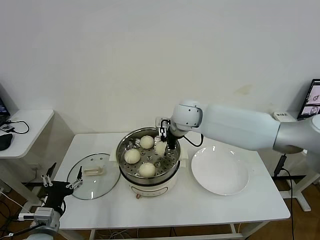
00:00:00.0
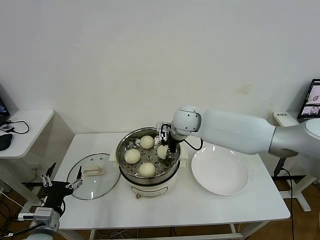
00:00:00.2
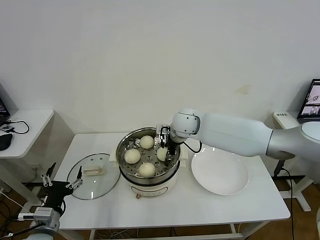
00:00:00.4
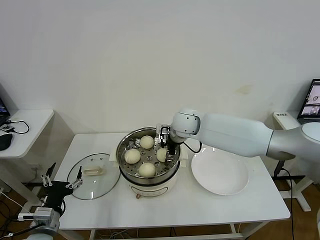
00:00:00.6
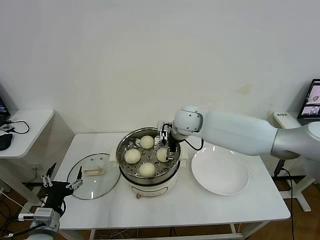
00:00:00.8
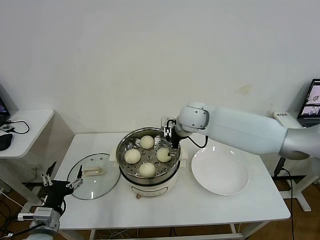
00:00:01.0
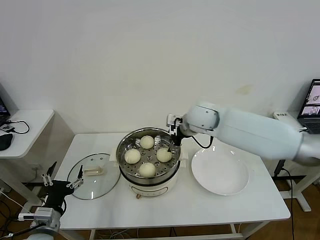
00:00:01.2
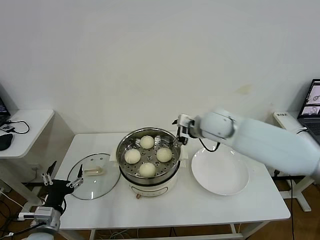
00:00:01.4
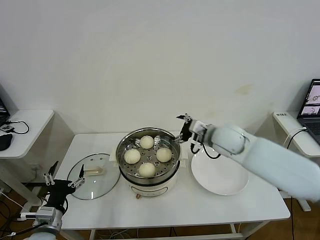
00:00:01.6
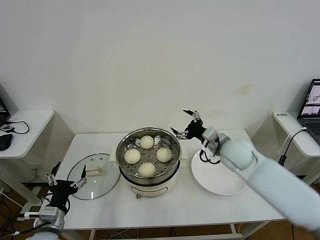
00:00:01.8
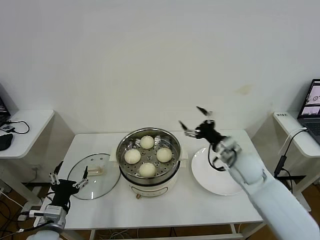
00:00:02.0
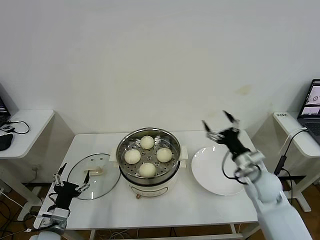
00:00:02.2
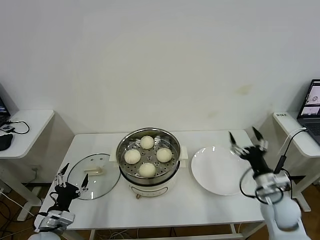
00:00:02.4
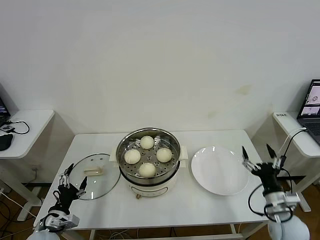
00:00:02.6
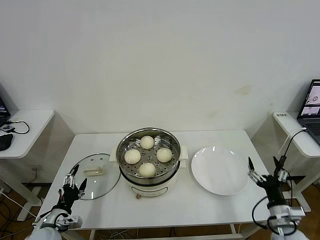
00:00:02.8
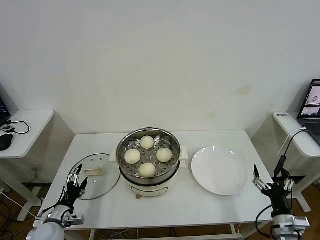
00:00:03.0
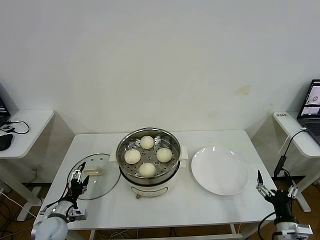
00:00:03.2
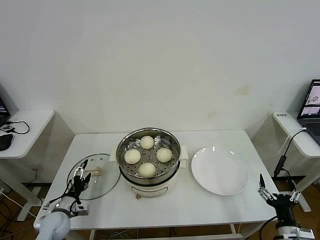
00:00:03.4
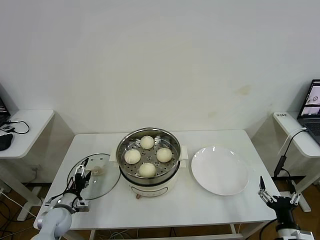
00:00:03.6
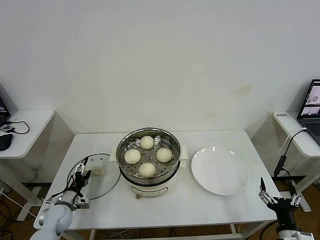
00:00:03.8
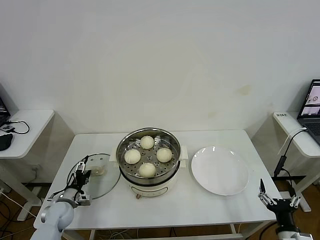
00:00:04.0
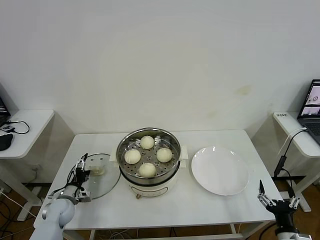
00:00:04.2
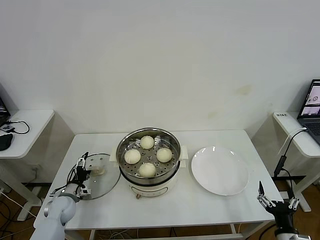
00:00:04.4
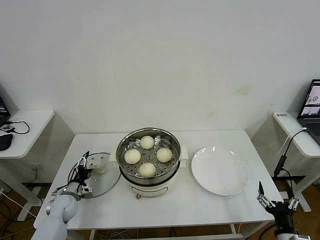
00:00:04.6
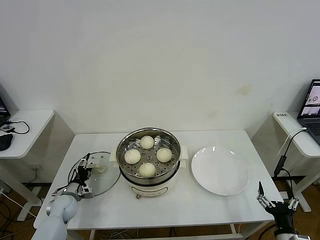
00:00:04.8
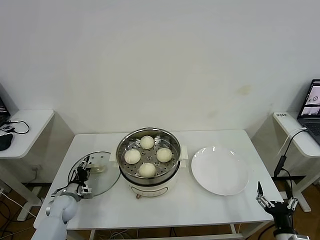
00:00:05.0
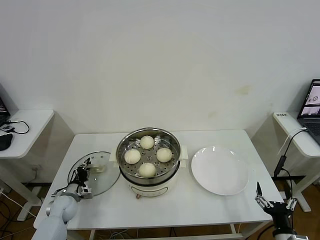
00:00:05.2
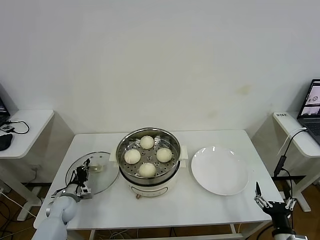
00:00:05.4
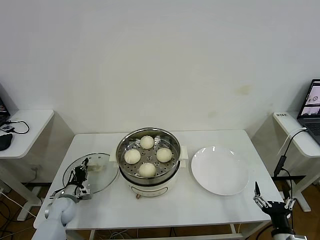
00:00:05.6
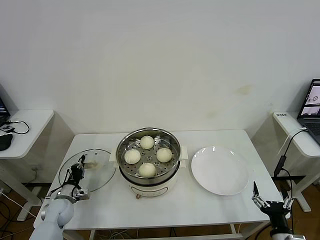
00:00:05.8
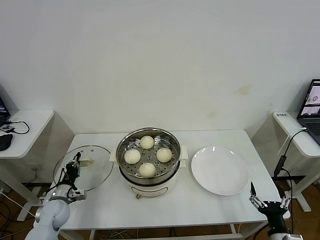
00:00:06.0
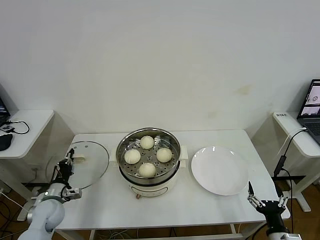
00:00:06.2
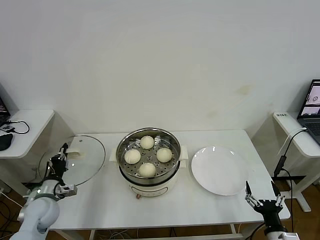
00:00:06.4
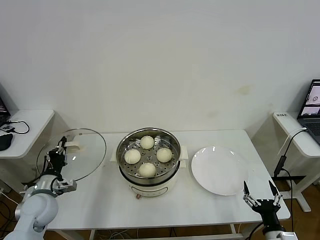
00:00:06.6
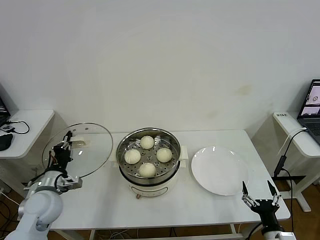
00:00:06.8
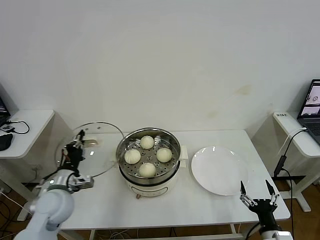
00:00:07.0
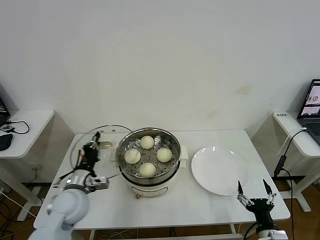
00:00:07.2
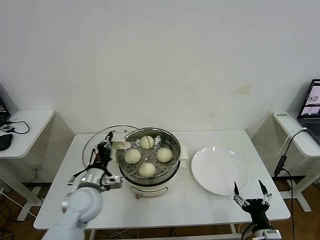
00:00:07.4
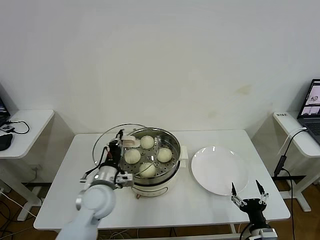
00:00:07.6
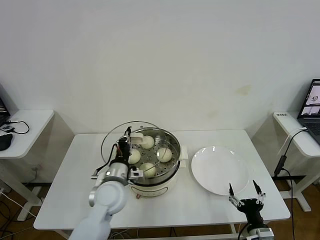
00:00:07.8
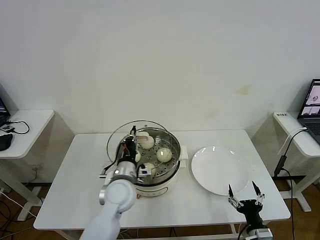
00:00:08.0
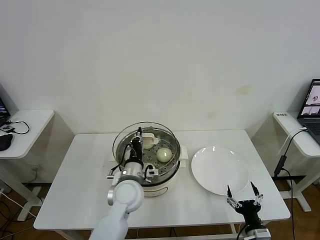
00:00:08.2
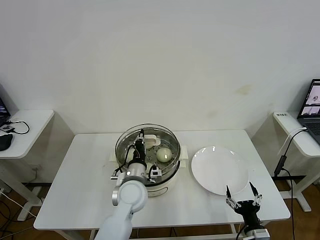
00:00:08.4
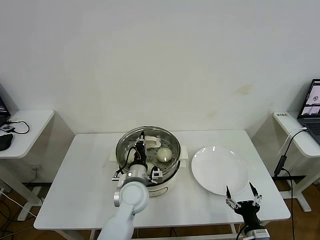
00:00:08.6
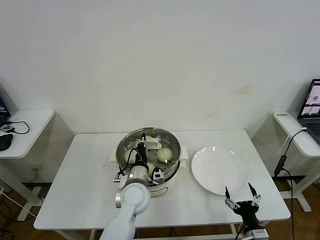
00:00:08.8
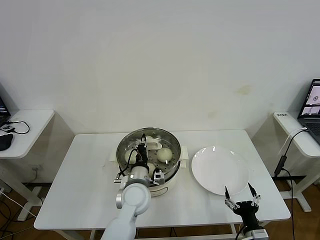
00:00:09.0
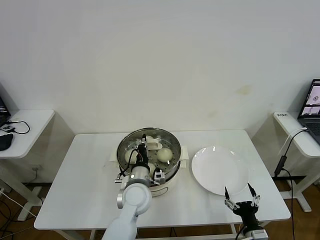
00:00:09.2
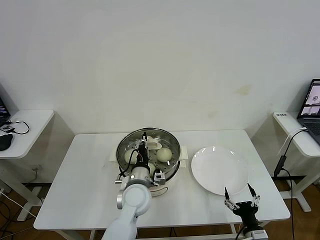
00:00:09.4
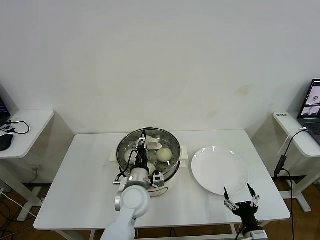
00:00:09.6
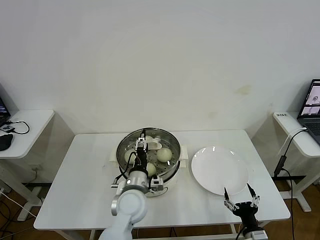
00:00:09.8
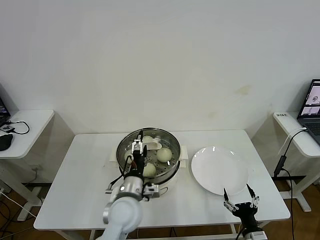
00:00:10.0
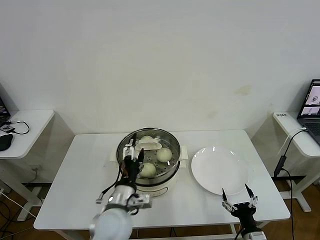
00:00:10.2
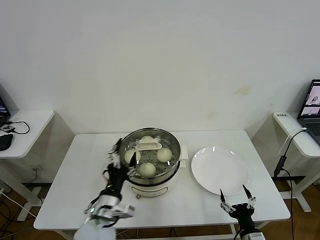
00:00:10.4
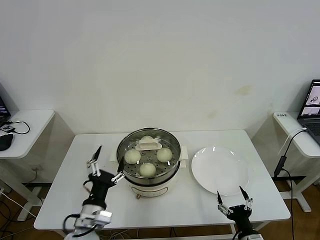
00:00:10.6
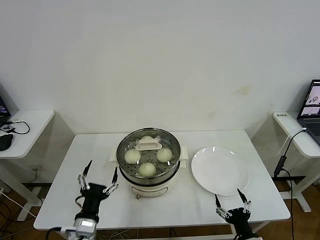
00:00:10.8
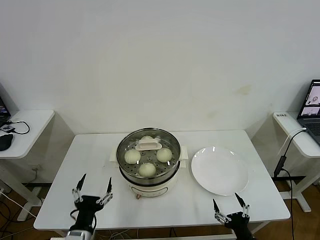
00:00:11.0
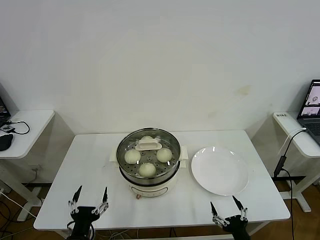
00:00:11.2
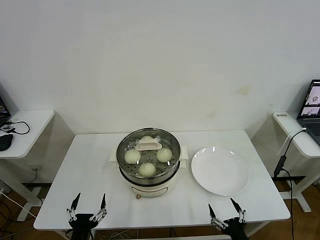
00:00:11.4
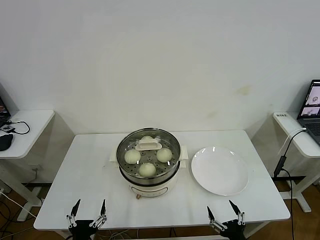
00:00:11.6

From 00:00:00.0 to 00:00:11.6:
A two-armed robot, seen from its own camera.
Task of the whole recording: take steamed baozi put them in steamer then cover it.
Step, from 00:00:01.0 to 00:00:05.4: Grasp the pot lid with left gripper.
Step, from 00:00:05.6 to 00:00:10.0: Place the pot lid on the steamer with left gripper.
From 00:00:00.0 to 00:00:01.4: The right gripper heads to the right, covering about 5 cm, and opens.
From 00:00:01.4 to 00:00:02.8: The right gripper moves backward, downward and to the right, approximately 40 cm; the left gripper moves downward, about 10 cm.
From 00:00:02.8 to 00:00:04.4: The right gripper travels backward by approximately 10 cm; the left gripper shifts roughly 15 cm forward and downward.
From 00:00:04.4 to 00:00:05.8: The left gripper closes.
From 00:00:05.8 to 00:00:07.2: The left gripper heads upward and to the right, covering about 20 cm.
From 00:00:07.2 to 00:00:08.8: The left gripper shifts approximately 20 cm to the right.
From 00:00:08.8 to 00:00:10.2: The left gripper travels backward by roughly 10 cm, and opens its fingers.
From 00:00:10.2 to 00:00:11.6: The left gripper is displaced backward, to the left and downward by about 25 cm, while the right gripper shifts about 5 cm backward.
